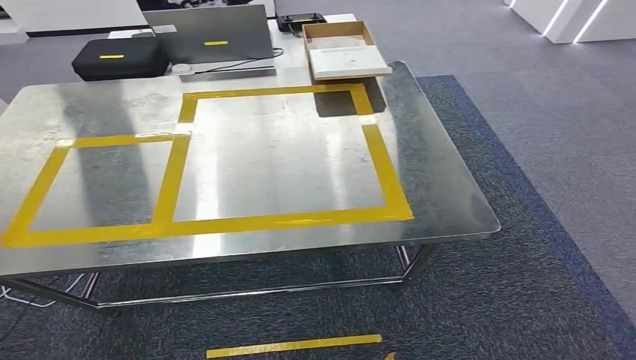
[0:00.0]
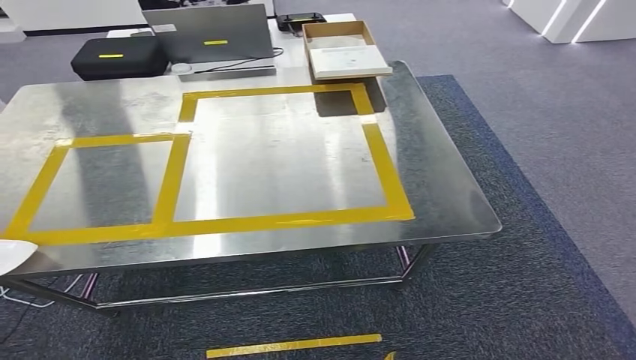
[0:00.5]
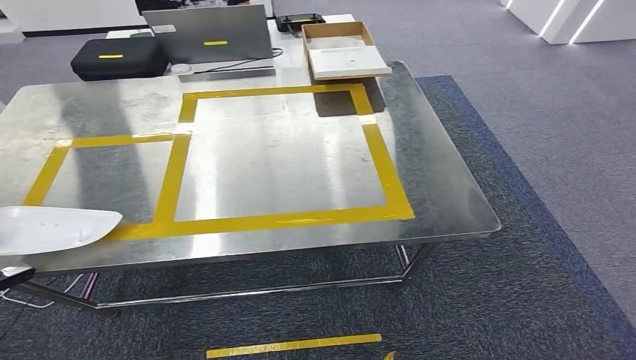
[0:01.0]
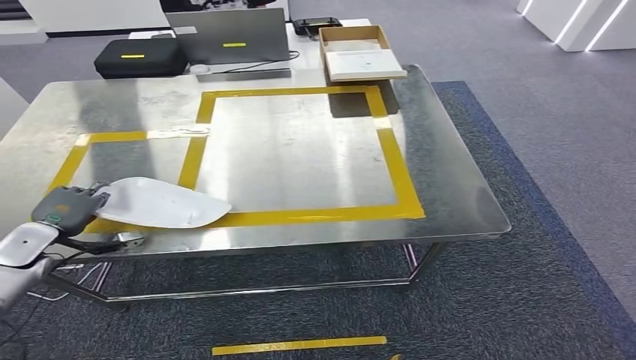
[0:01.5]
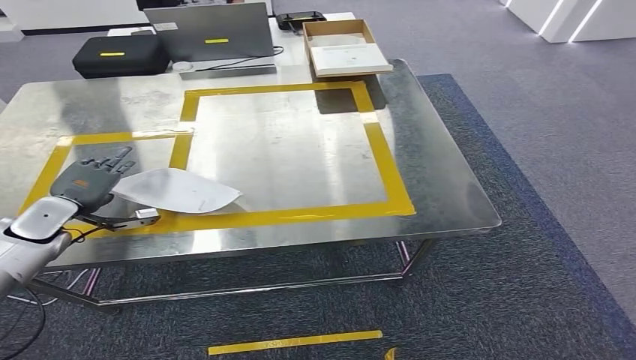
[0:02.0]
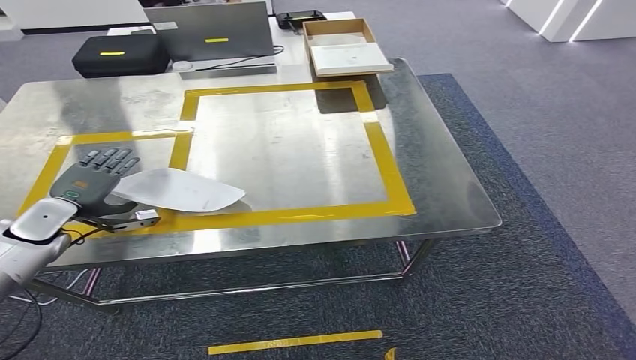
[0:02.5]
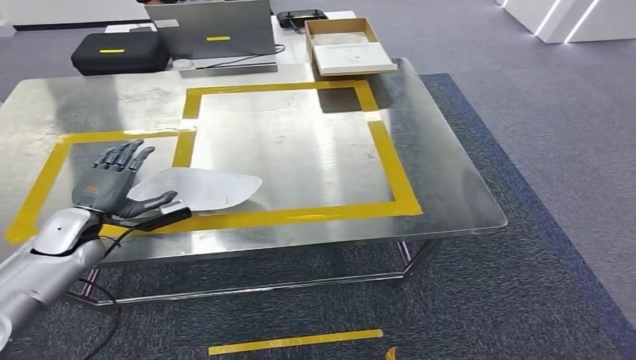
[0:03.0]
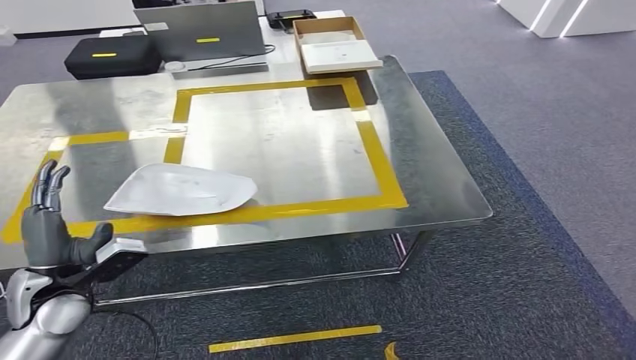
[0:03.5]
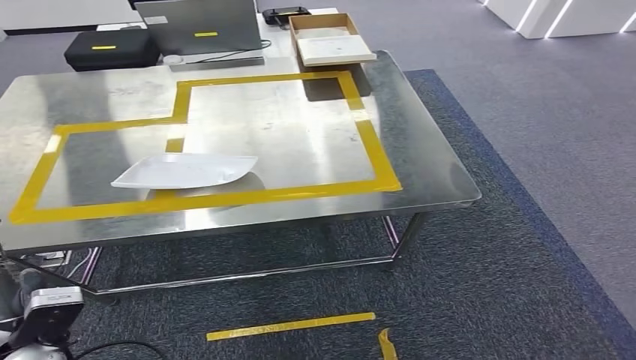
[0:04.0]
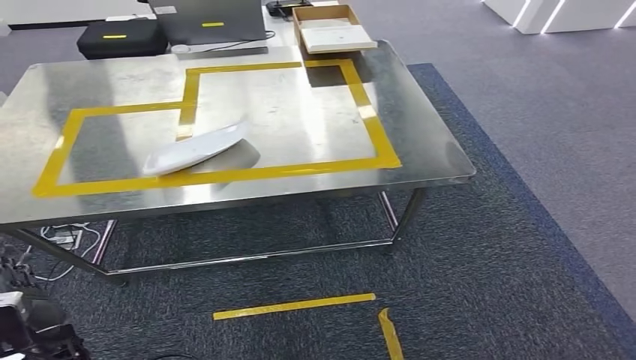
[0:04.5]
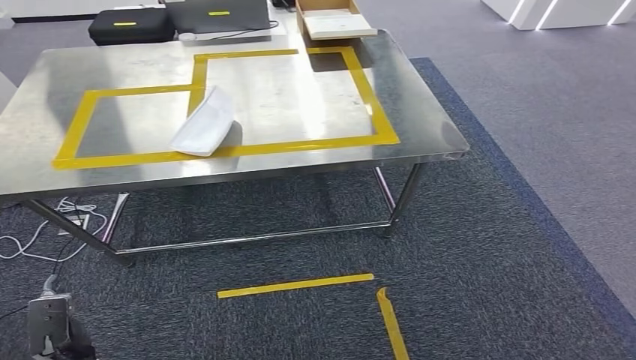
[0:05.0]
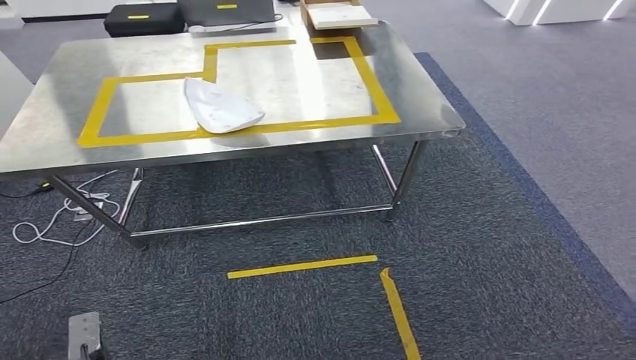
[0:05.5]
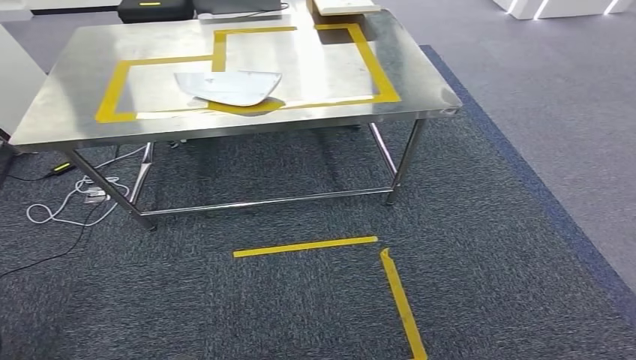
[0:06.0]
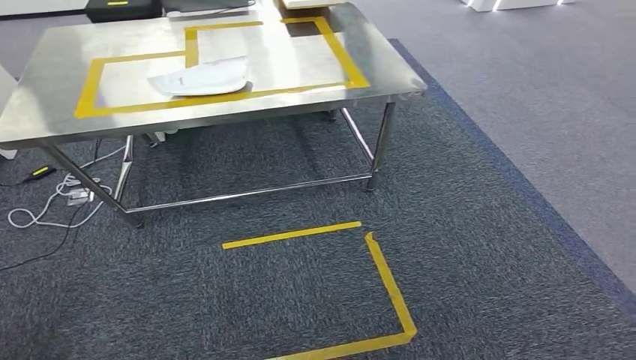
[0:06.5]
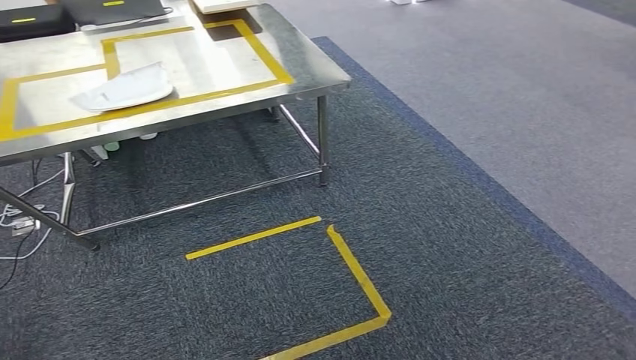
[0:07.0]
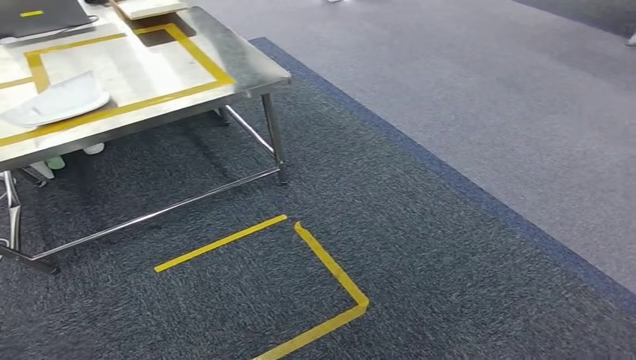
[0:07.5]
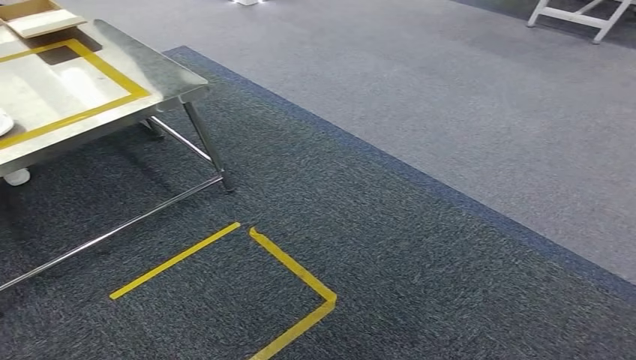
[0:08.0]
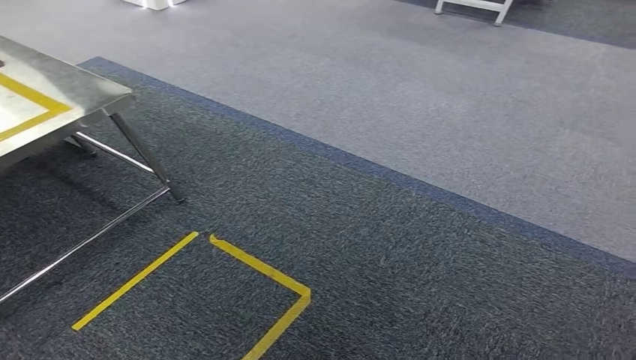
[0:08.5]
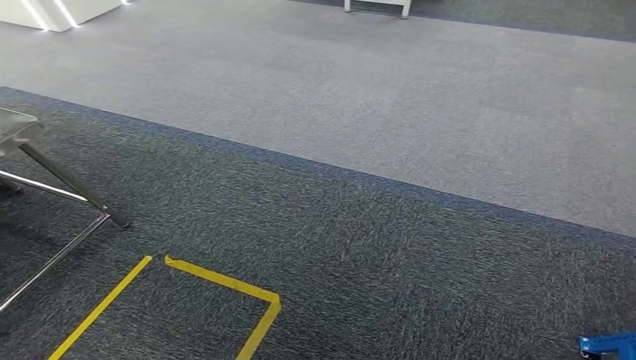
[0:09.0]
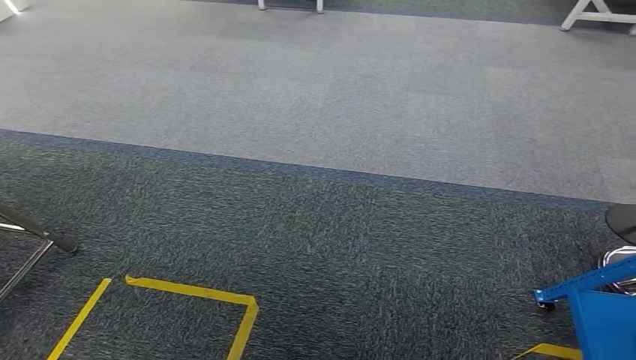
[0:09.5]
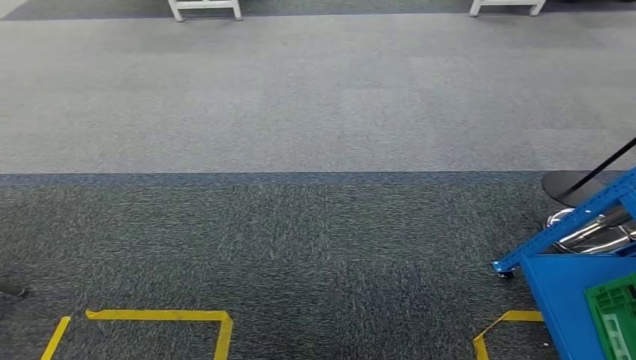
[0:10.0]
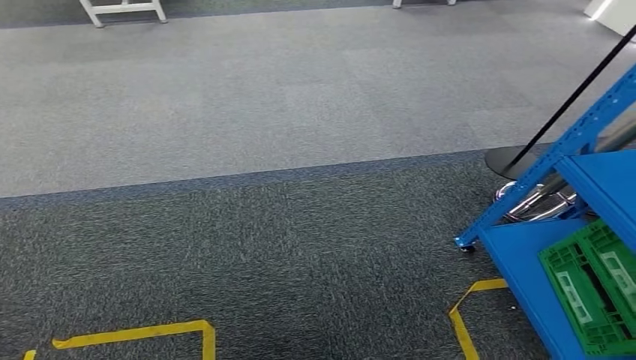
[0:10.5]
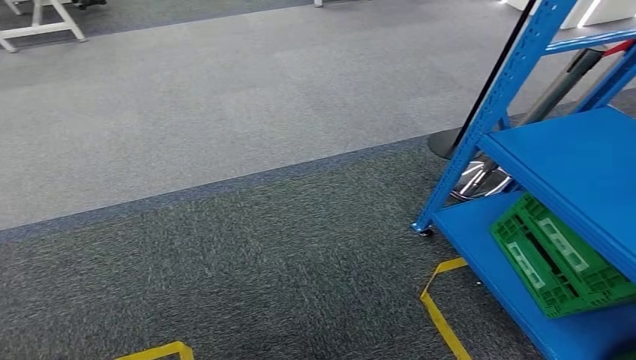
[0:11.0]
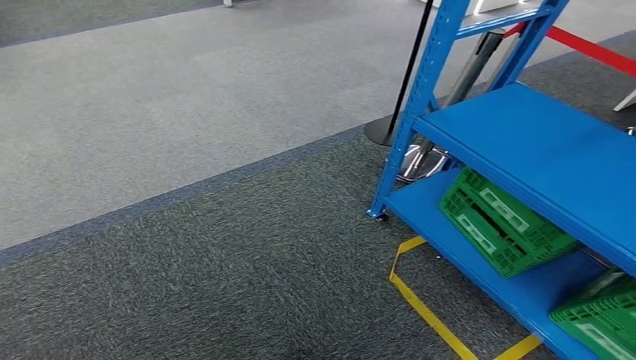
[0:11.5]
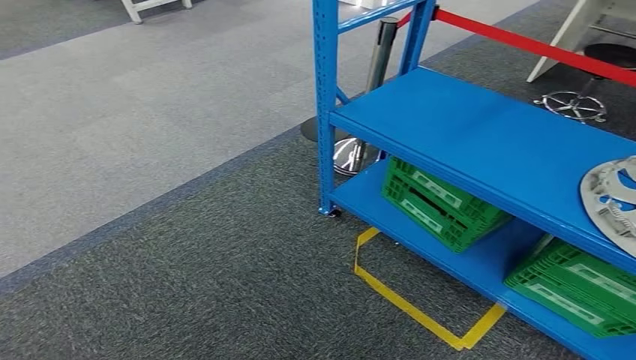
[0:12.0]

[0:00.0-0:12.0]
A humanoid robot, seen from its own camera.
Step, 0:00.0 to 0:04.0: Insert the small component into the corresponding slot on the workbench.
0:00.0 to 0:02.0: The left hand heads forward and to the right, covering roughly 40 cm.

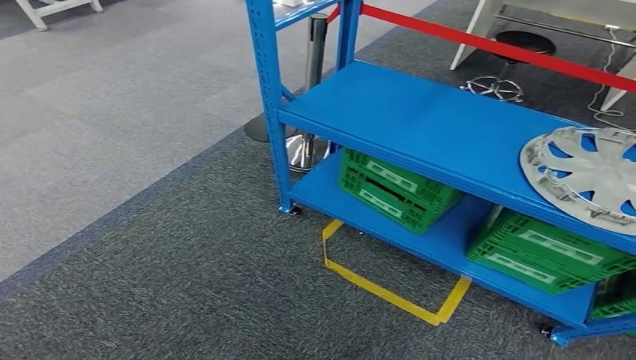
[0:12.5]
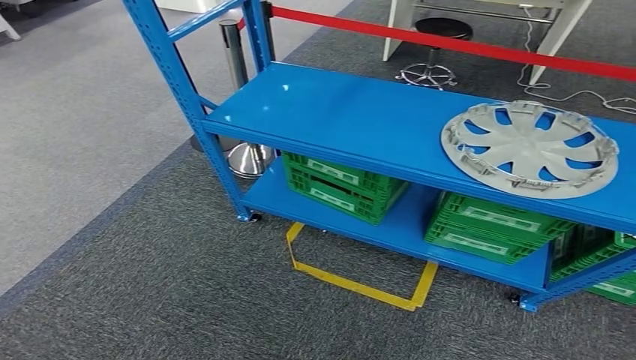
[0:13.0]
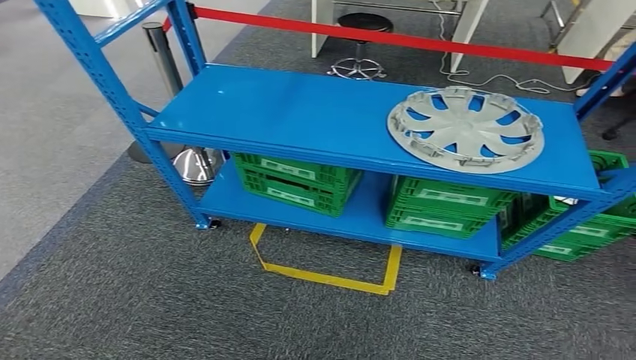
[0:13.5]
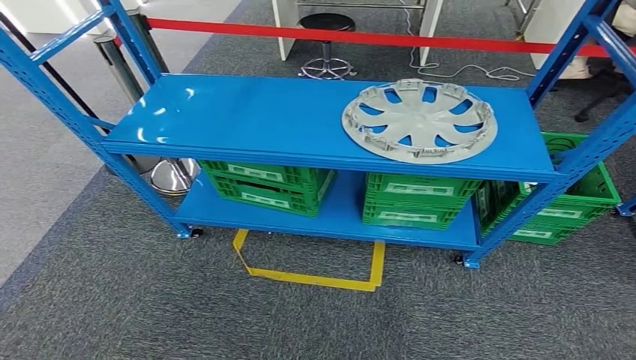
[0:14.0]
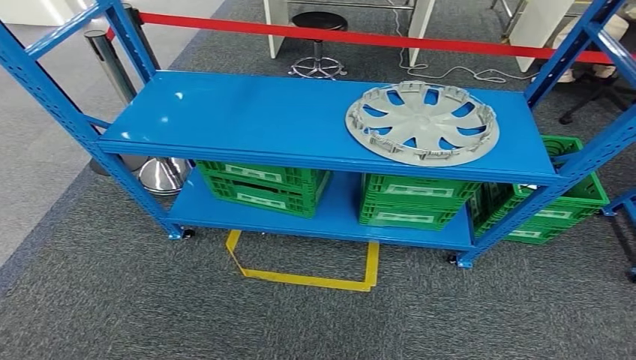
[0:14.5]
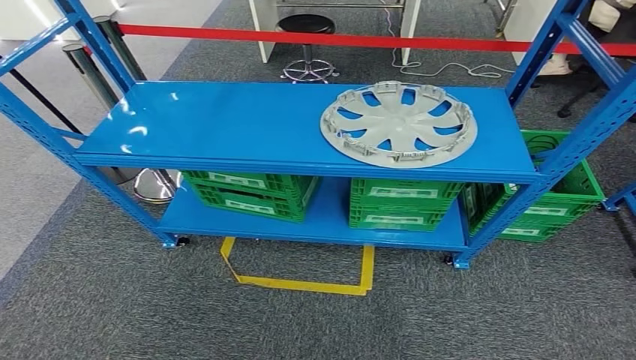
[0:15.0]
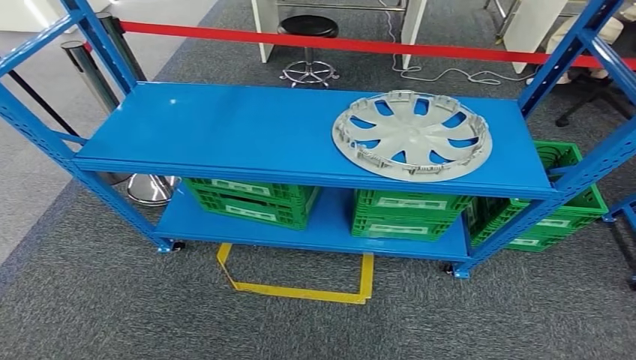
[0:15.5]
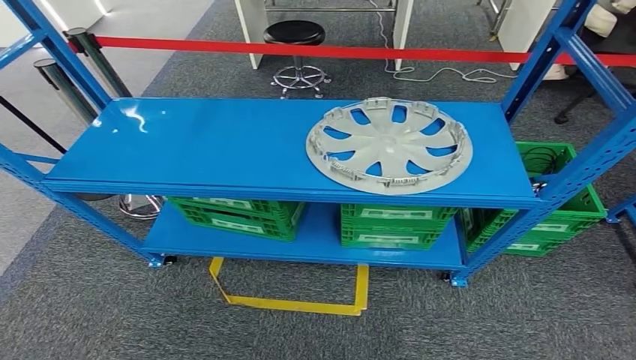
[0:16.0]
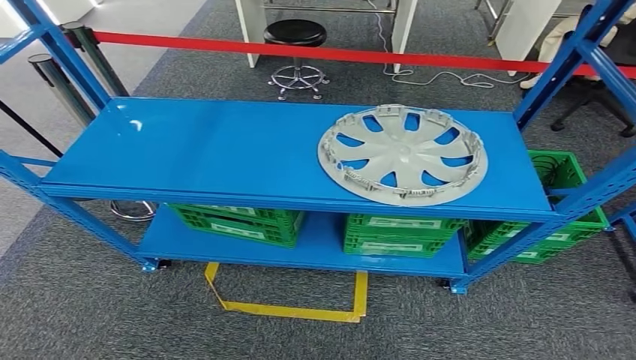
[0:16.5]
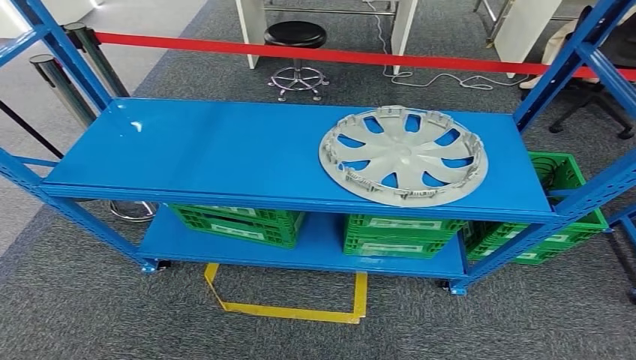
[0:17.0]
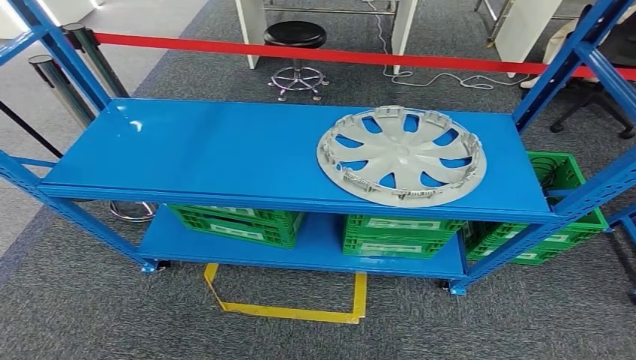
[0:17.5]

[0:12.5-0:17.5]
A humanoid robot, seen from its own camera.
Step, 0:12.5 to 0:17.5: Move to the initial position of the workbench.
